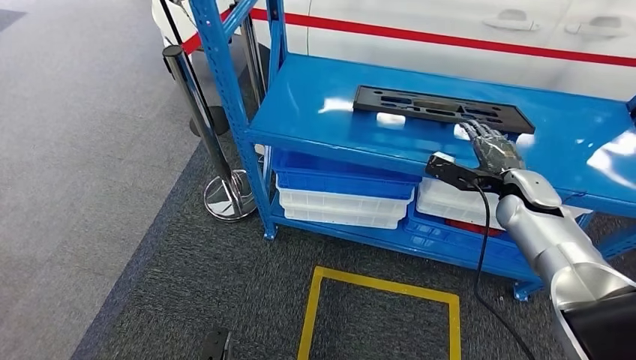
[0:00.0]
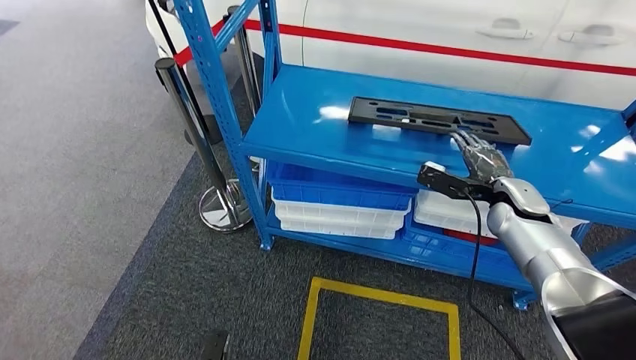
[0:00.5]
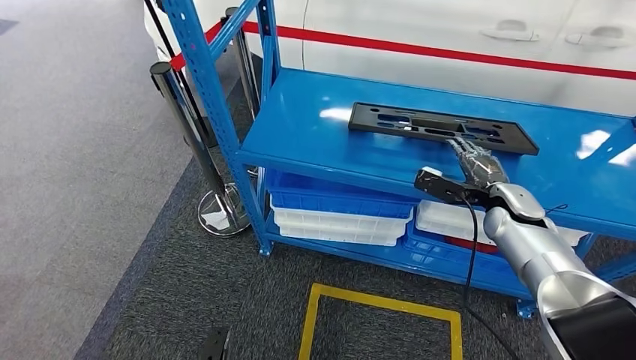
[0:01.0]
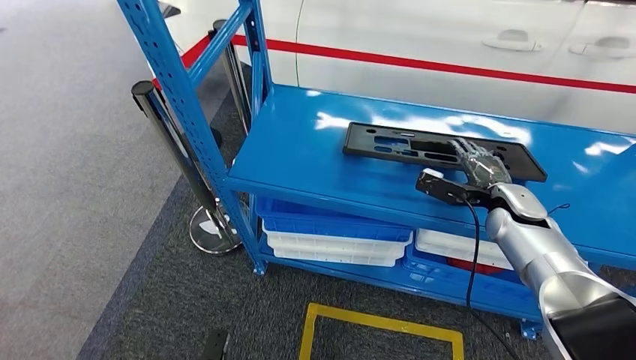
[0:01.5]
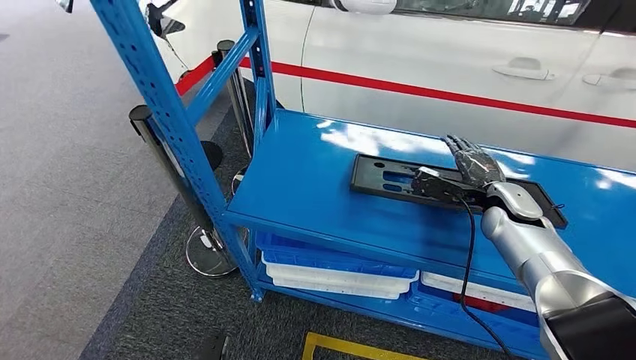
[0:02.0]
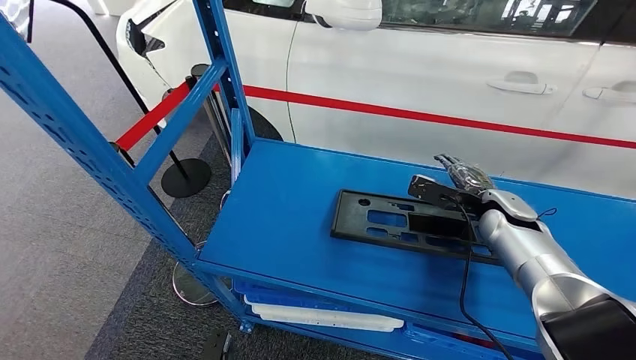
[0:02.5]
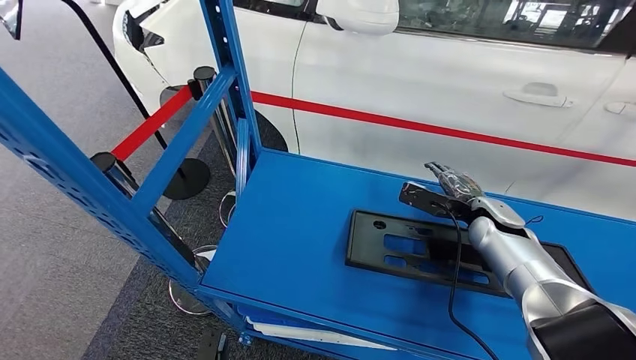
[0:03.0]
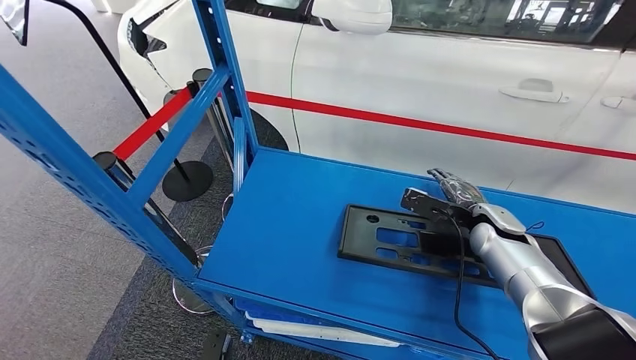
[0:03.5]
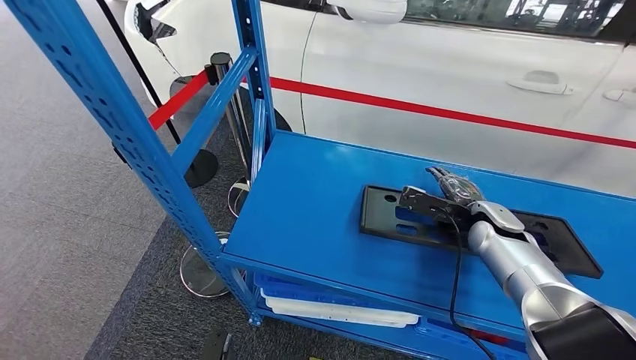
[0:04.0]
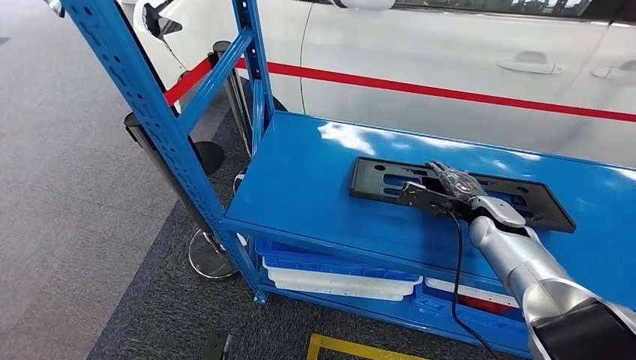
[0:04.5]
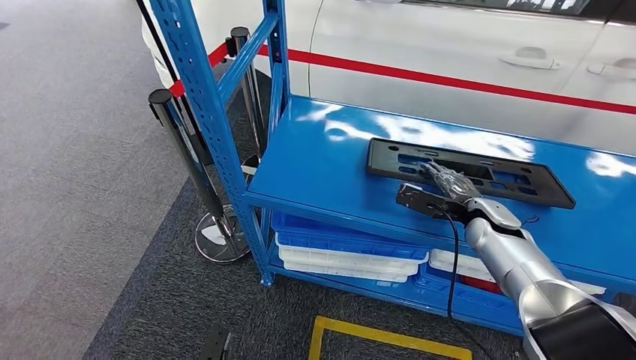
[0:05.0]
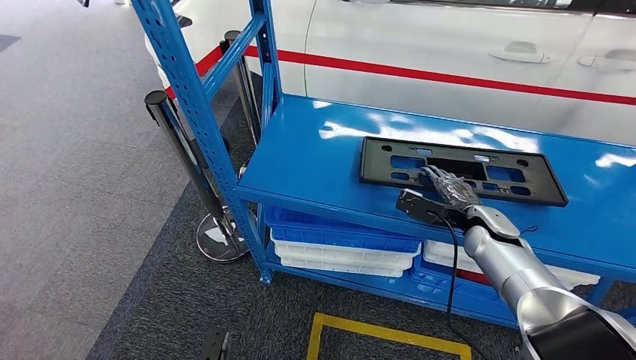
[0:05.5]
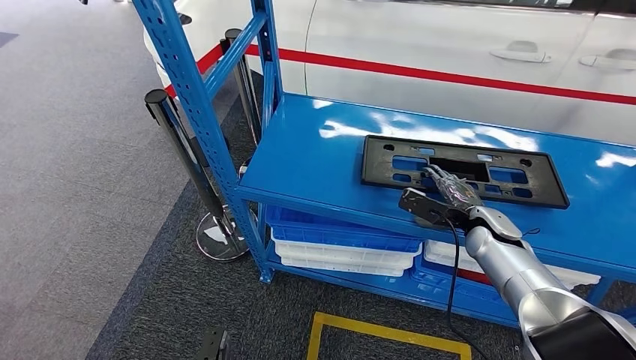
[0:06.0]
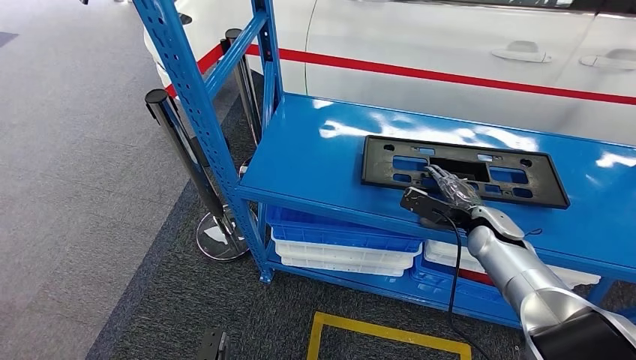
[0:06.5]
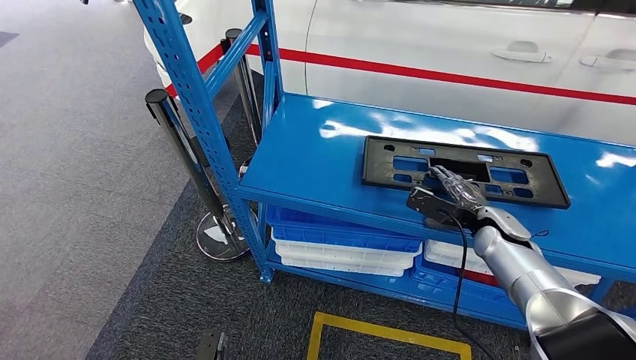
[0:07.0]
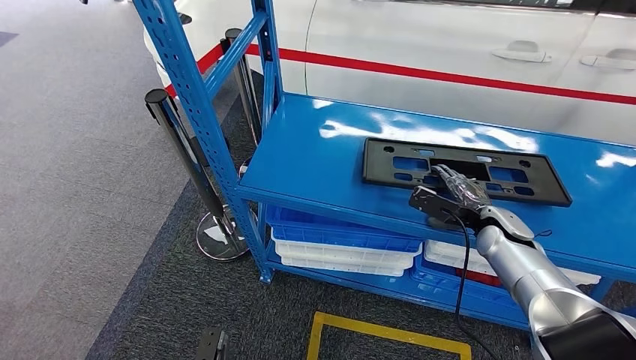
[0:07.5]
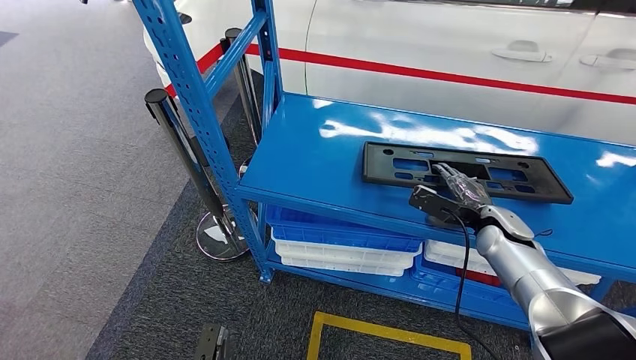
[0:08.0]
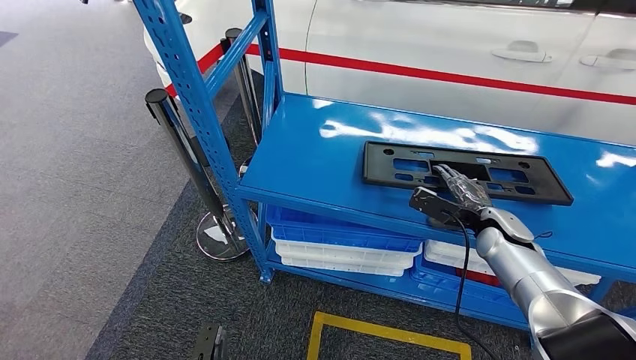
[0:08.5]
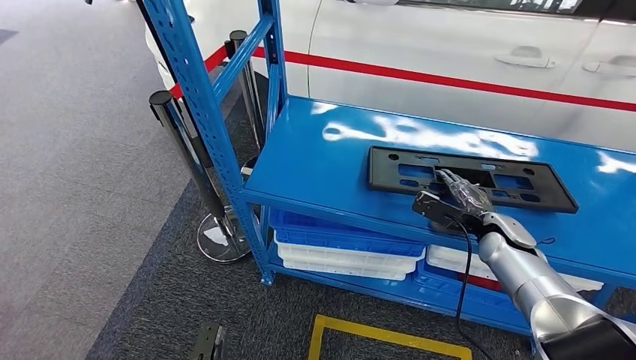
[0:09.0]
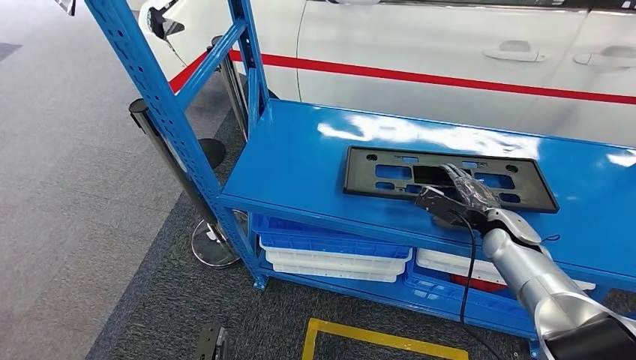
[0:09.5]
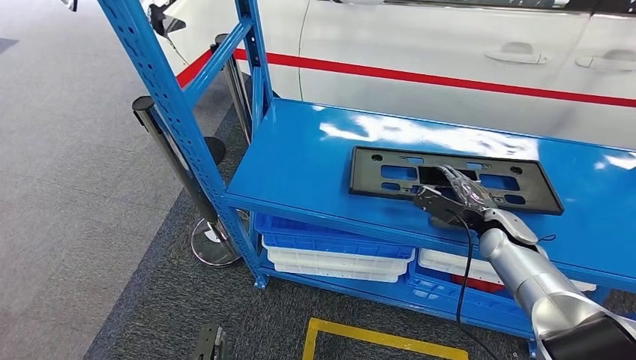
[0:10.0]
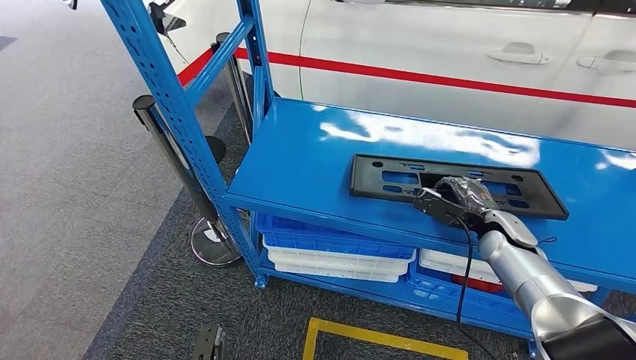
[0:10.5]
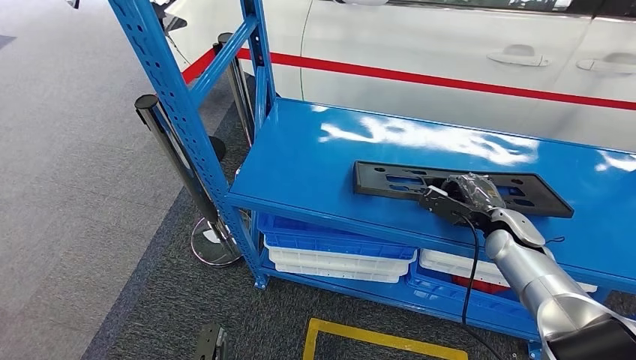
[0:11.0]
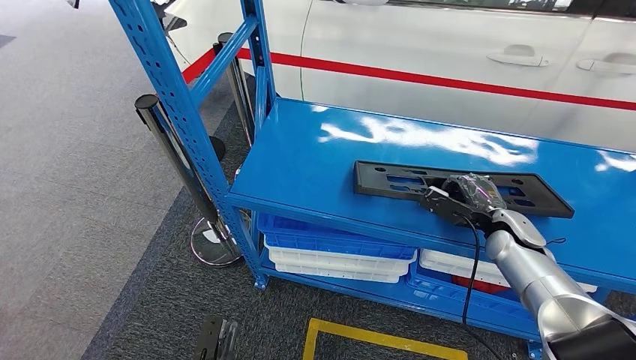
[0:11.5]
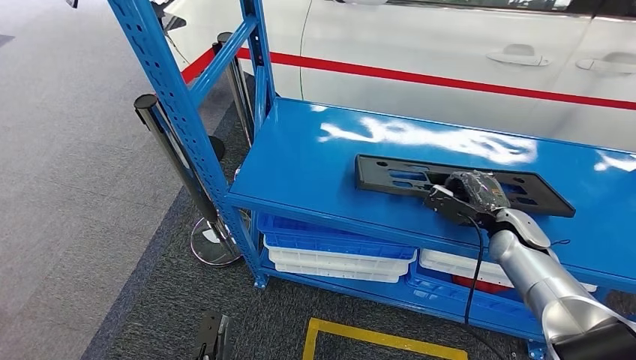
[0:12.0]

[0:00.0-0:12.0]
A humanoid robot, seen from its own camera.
6.0 to 8.0 s: The hands make only small movements.
10.0 to 12.0 s: The hands make only small movements.

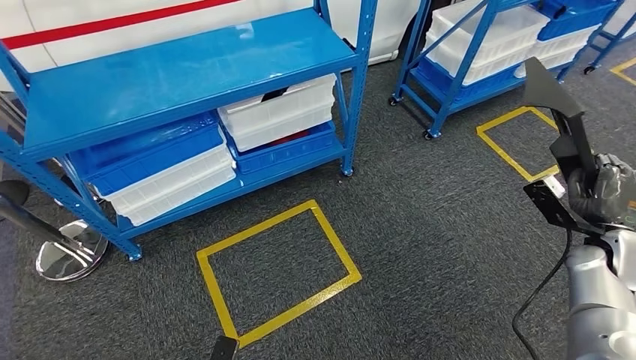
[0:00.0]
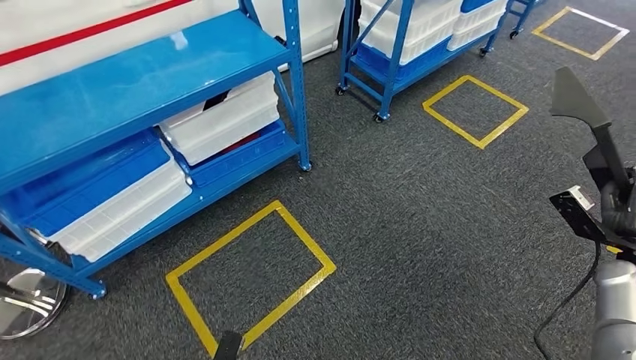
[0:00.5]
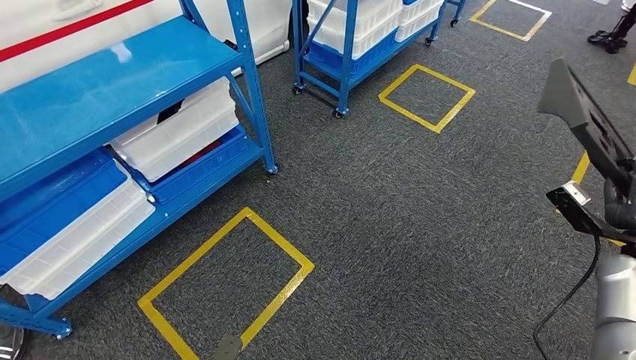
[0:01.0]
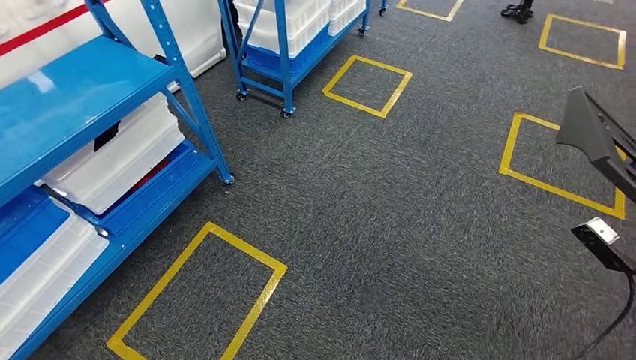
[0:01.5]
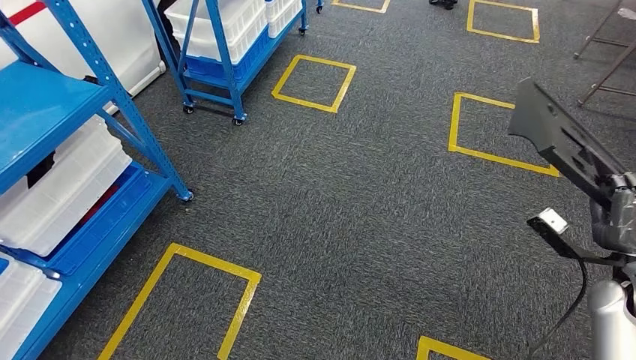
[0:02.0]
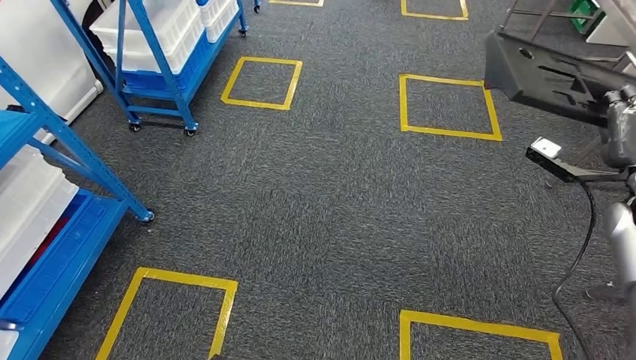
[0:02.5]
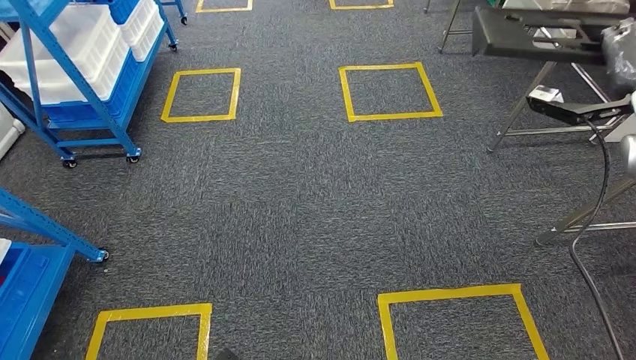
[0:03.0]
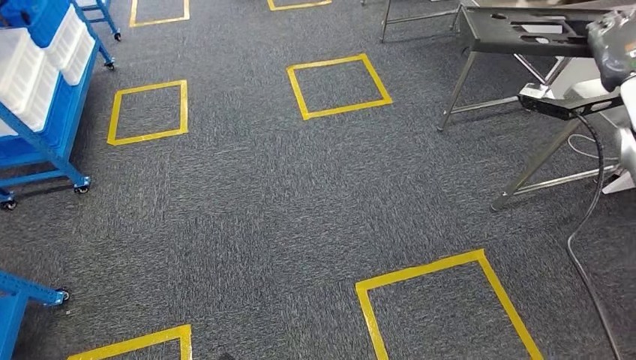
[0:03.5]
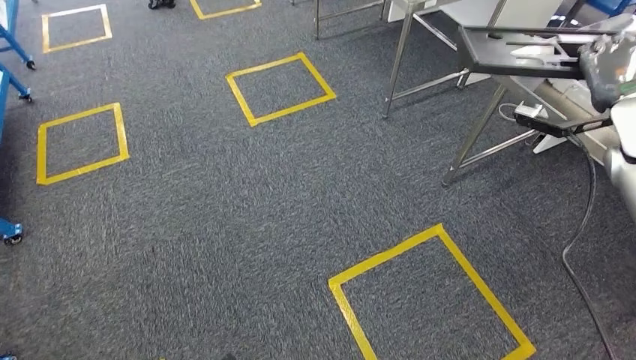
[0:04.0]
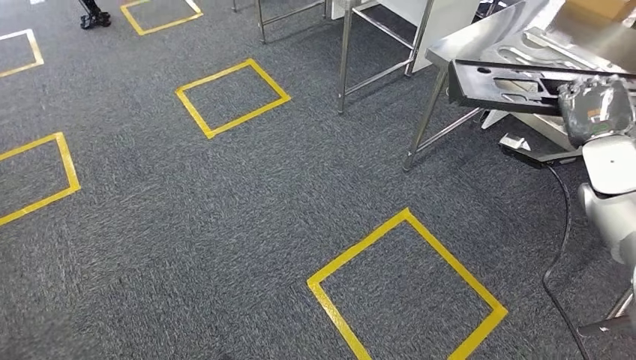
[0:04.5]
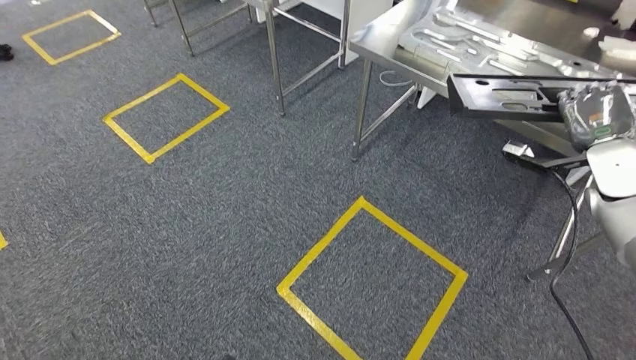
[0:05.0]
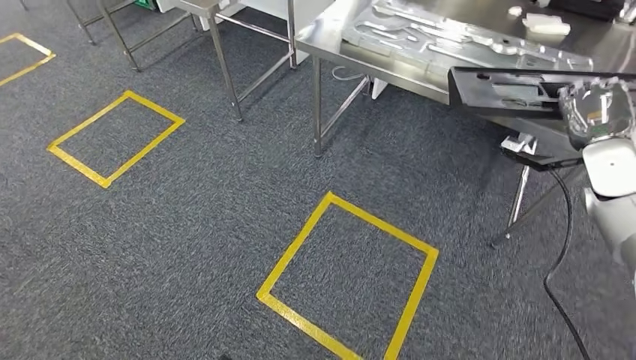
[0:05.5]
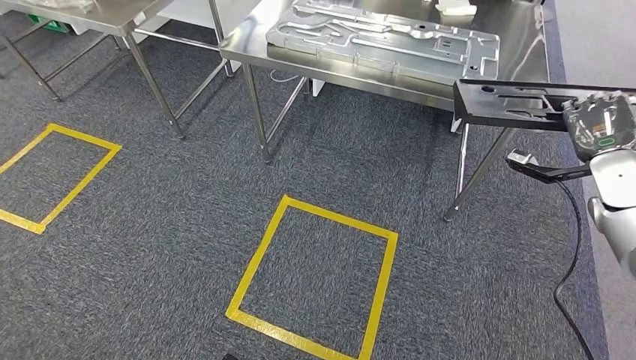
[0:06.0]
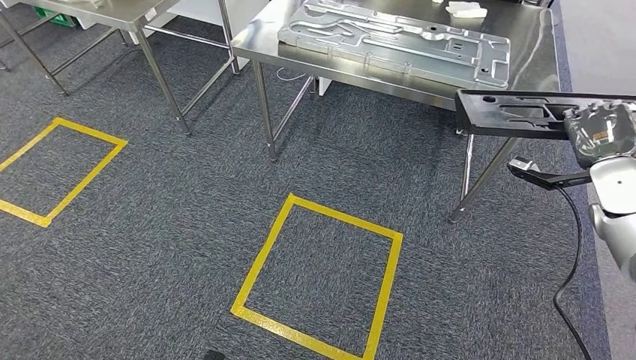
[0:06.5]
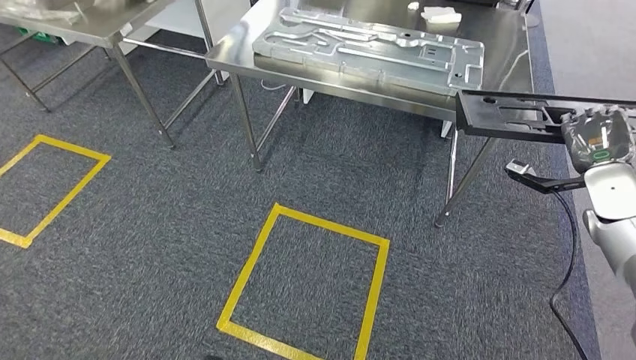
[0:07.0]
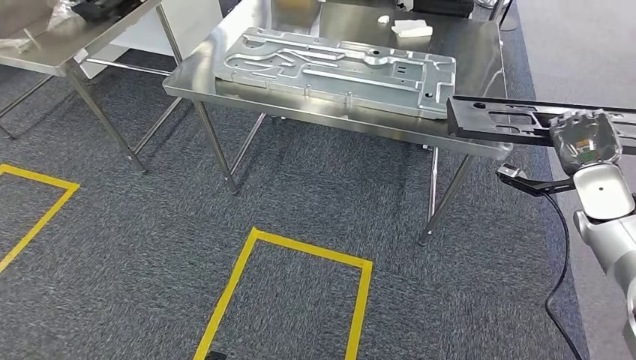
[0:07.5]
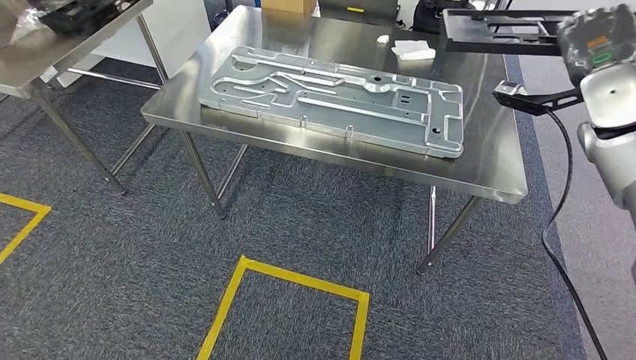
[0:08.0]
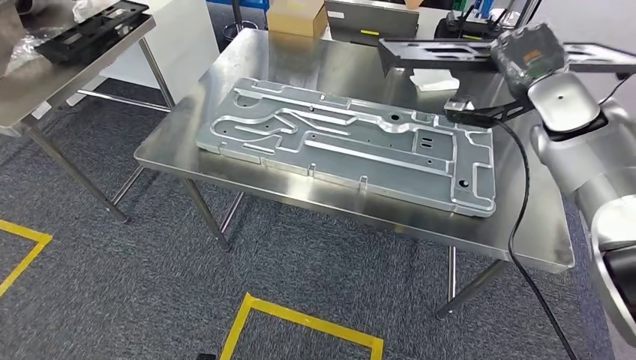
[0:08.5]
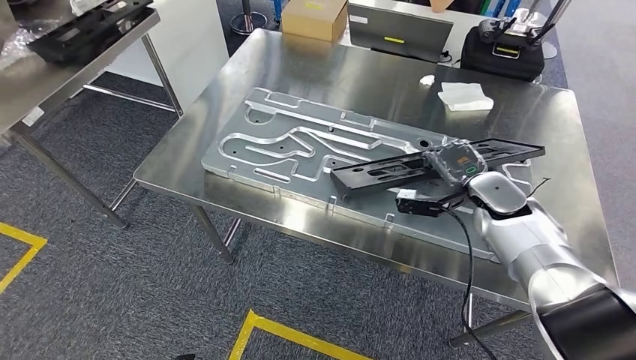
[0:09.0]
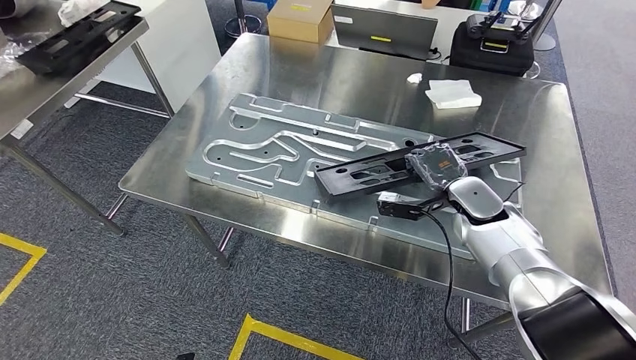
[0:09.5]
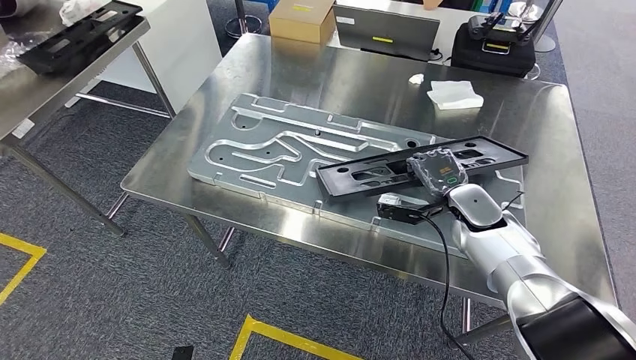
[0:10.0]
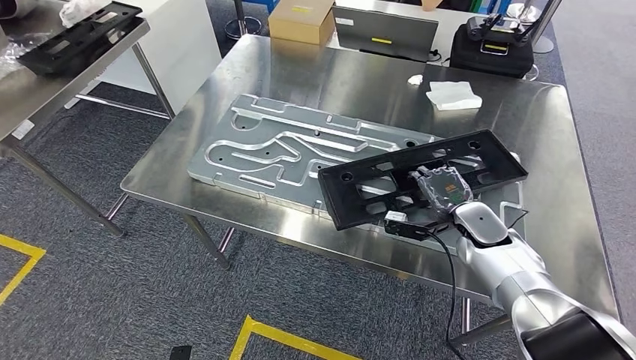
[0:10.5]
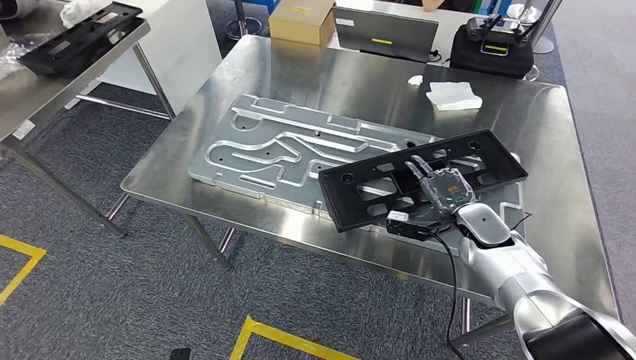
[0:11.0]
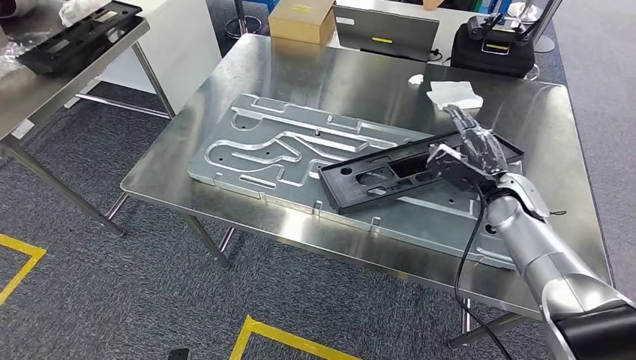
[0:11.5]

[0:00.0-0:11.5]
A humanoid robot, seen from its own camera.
Step, 0.0 to 9.0 s: Move the large material to the workbench.
9.5 to 11.5 s: The right hand heads to the right, covering some 5 cm.
